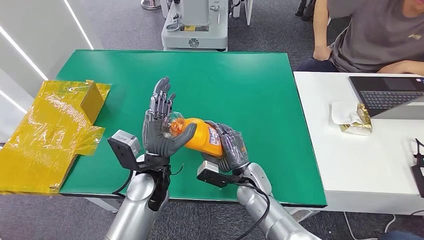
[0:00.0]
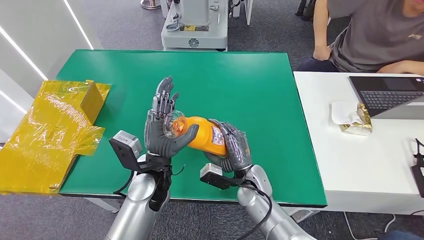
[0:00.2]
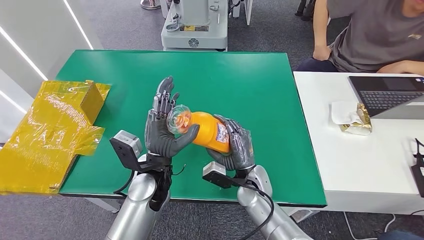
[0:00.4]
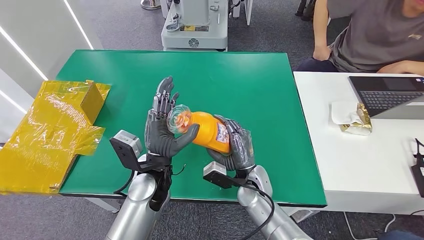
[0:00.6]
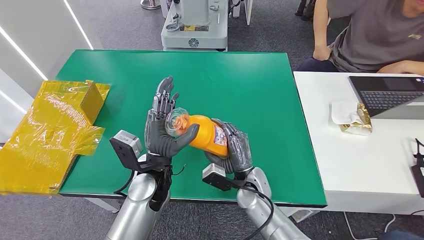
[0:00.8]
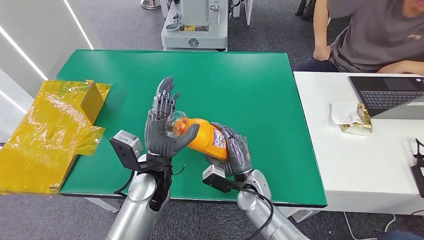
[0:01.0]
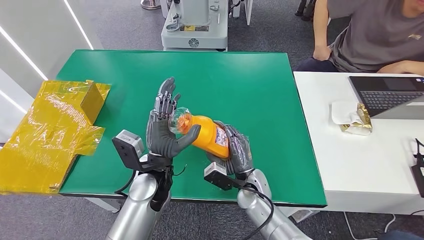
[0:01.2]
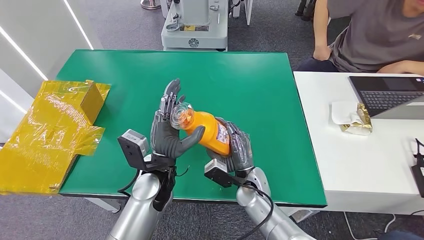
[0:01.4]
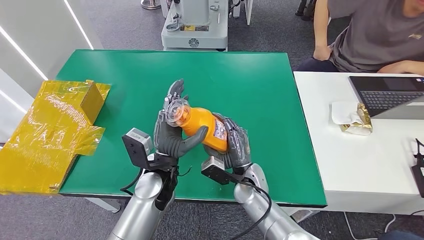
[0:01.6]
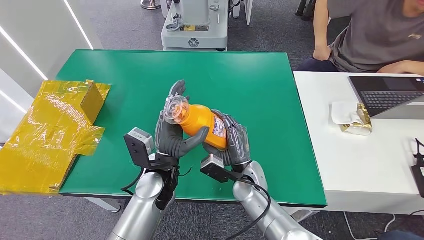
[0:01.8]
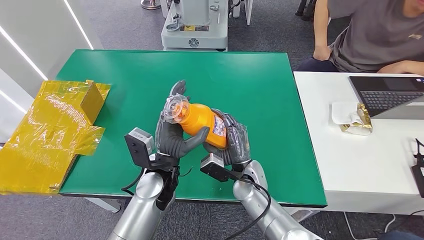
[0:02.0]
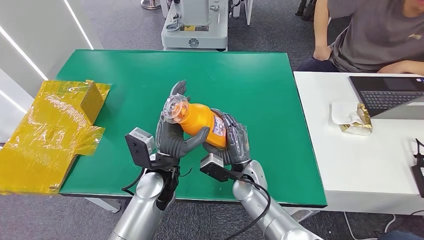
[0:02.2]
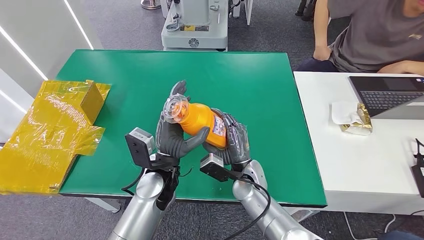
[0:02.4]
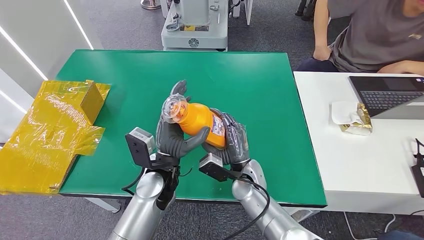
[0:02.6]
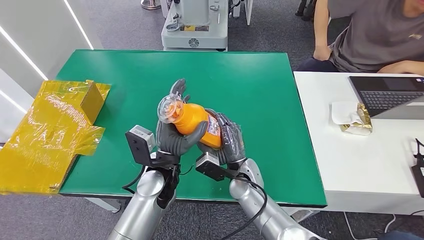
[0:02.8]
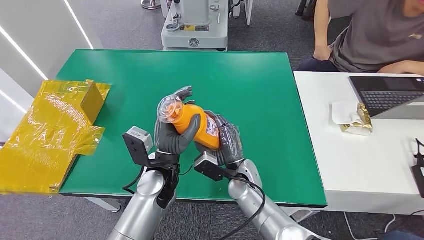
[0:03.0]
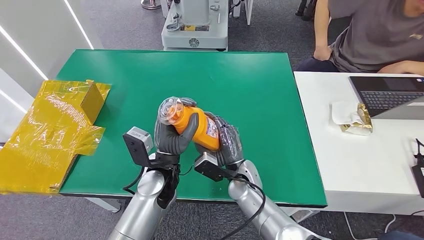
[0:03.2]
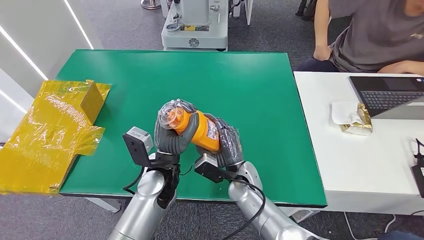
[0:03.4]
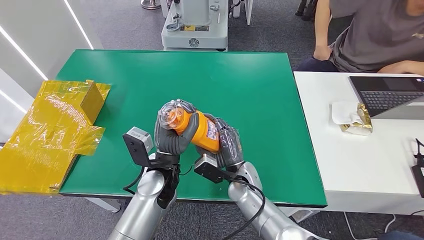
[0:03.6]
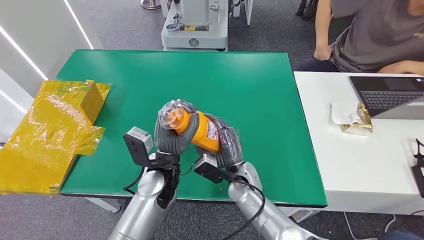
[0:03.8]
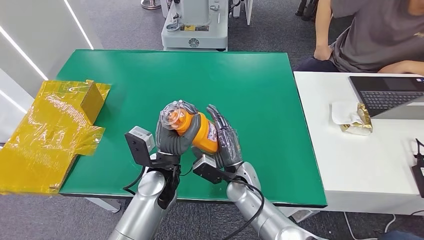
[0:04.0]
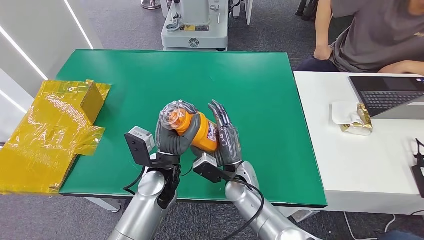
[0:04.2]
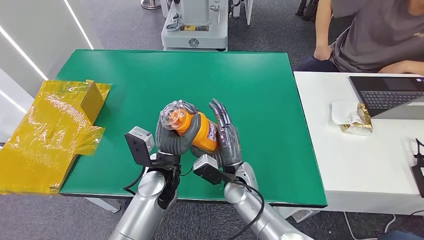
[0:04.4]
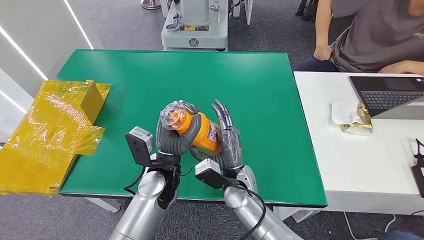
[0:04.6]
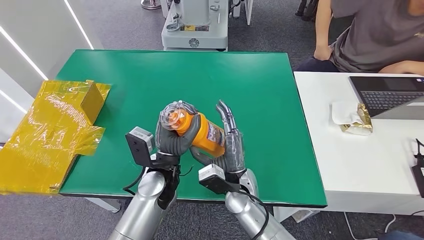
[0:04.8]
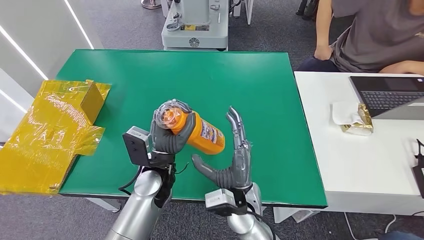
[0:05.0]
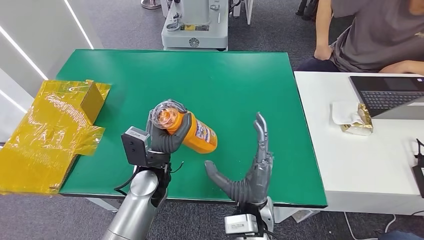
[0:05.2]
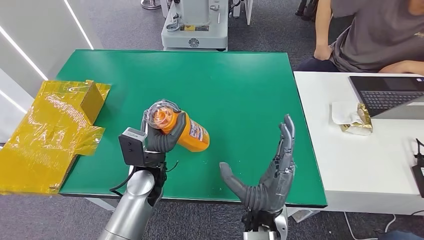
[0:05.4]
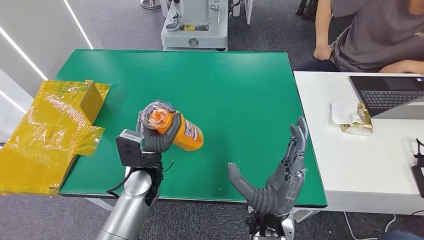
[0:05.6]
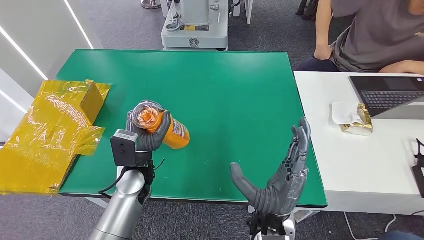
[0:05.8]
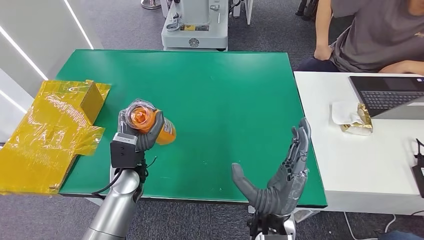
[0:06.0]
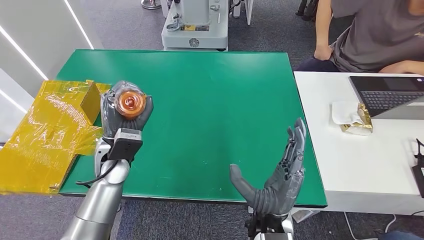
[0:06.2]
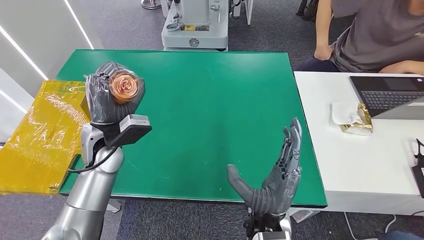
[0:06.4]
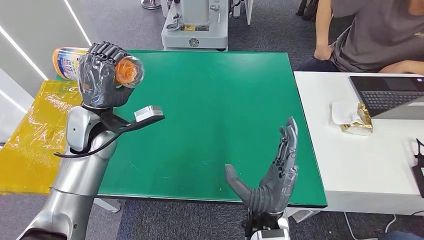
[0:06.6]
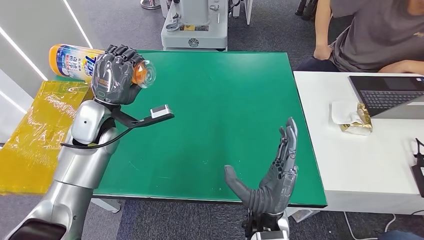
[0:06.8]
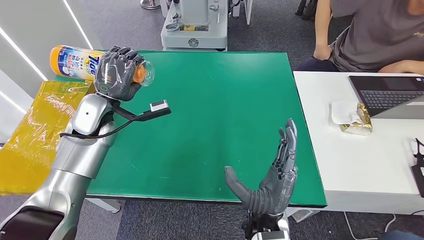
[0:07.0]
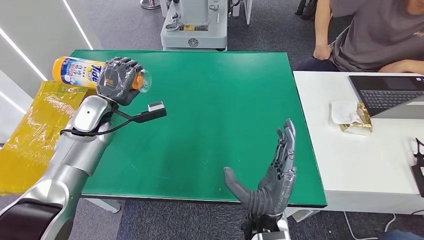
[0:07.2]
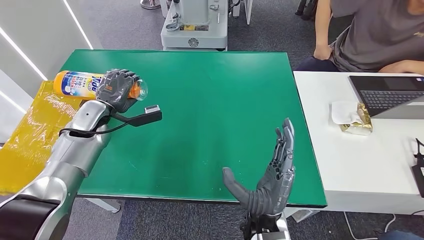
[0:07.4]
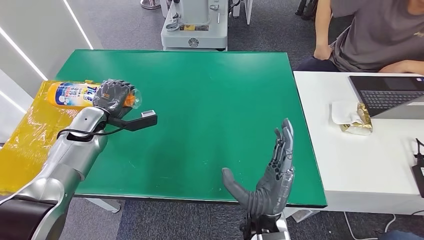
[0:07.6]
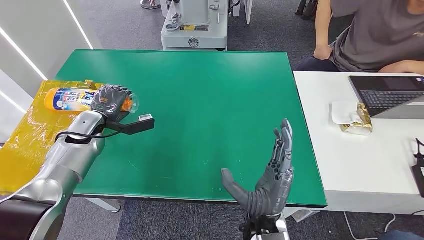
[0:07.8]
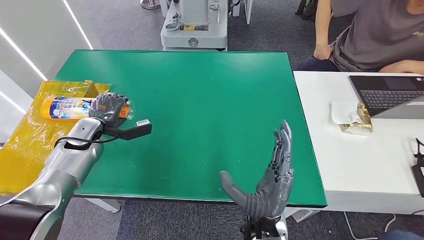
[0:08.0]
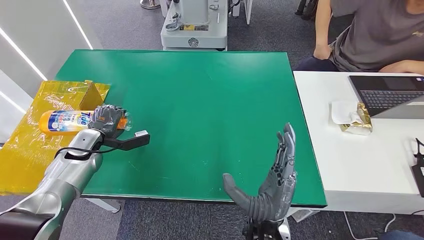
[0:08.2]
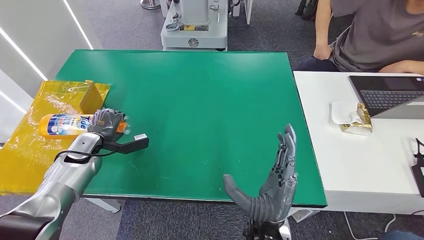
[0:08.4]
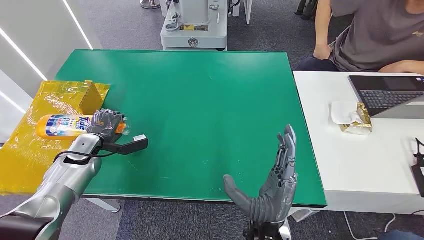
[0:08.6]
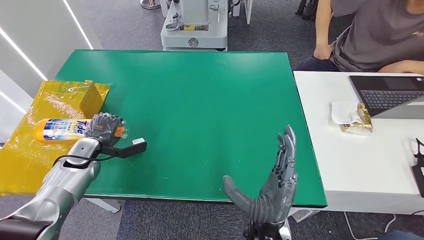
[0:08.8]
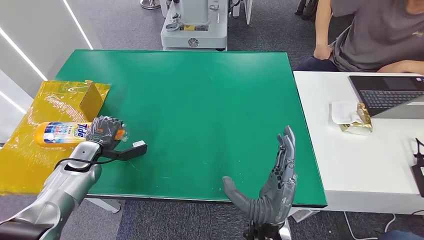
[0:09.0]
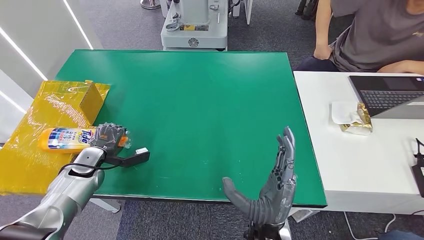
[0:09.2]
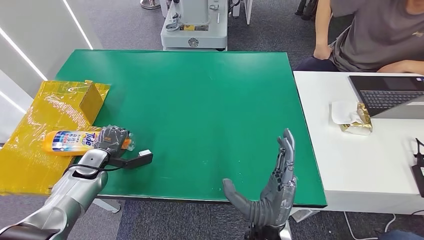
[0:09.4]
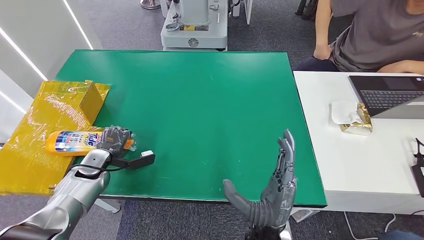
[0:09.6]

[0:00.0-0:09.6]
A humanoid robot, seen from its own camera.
Step, 0:00.0 to 0:09.6: Turn the bottle to the front side.
0:00.0 to 0:03.2: The hands move only a little.
0:03.2 to 0:04.8: The hands move only a little.
0:04.8 to 0:06.4: The right hand travels backward and upward by some 10 cm, while the left hand shifts roughly 15 cm to the left, forward and upward.
0:06.4 to 0:08.0: The left hand goes about 15 cm to the left and downward.
0:08.0 to 0:09.6: The left hand heads downward and backward, covering approximately 10 cm.
